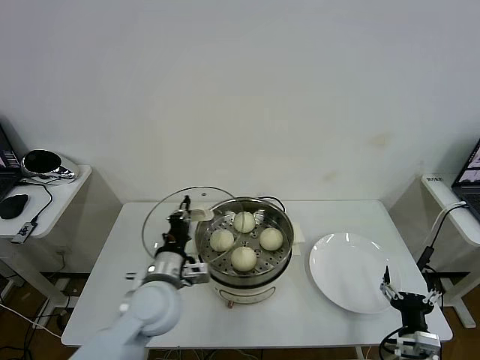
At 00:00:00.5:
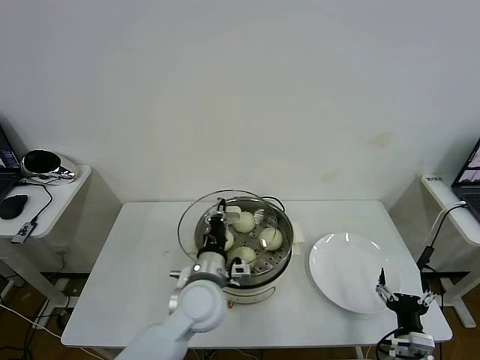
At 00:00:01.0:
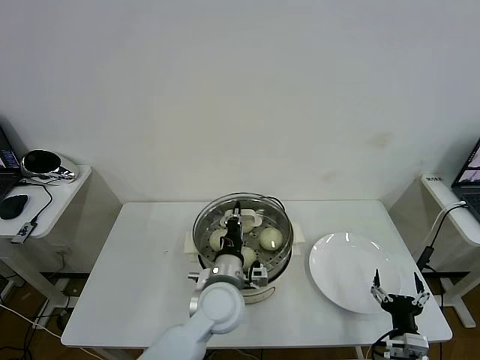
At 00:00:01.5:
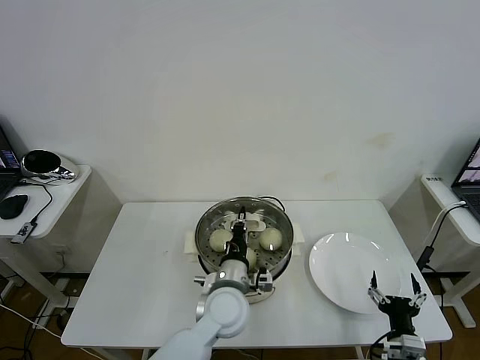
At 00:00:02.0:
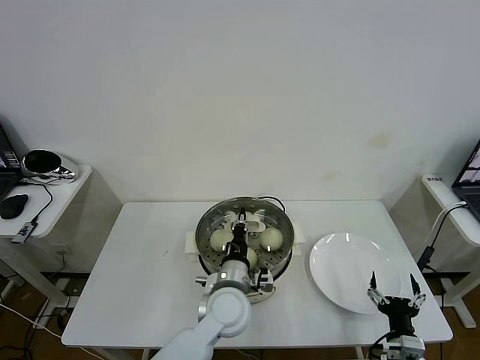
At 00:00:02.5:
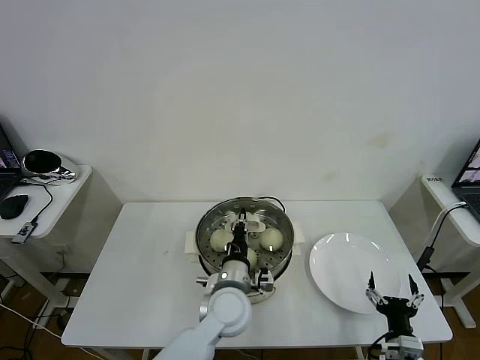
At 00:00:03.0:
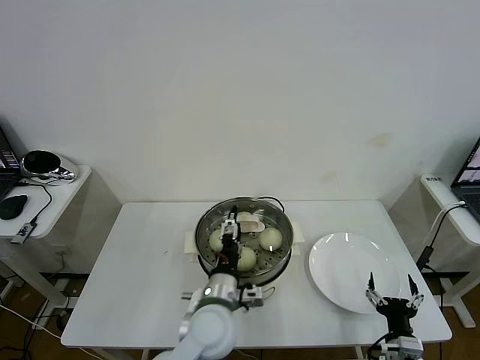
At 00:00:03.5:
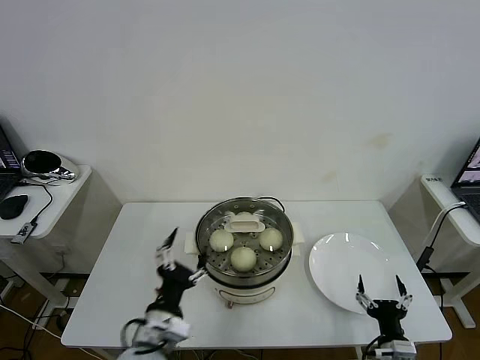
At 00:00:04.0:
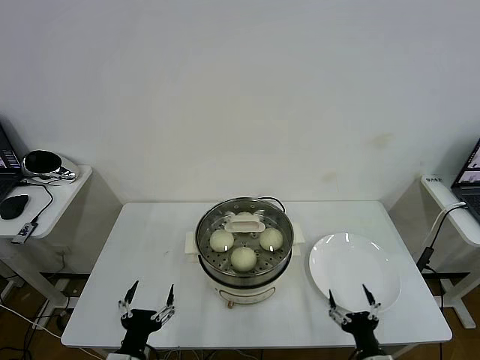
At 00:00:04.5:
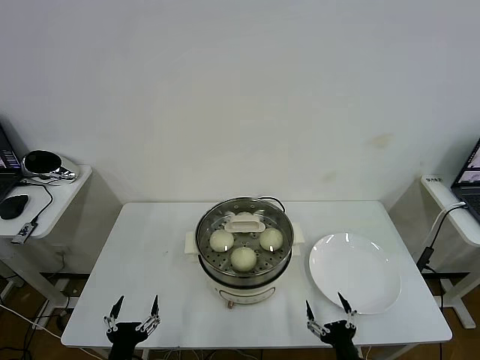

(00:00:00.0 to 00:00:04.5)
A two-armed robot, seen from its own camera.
Task of the whole recording: take steamed baozi put them in steamer then cover it.
Step, 00:00:00.0 - 00:00:02.5: Place the pot lid on the steamer with left gripper.
00:00:00.0 - 00:00:02.0: The left gripper moves to the right, some 15 cm.
00:00:02.0 - 00:00:04.5: The right gripper travels to the left by about 5 cm; the left gripper heads to the left and backward, covering about 30 cm, and opens up.
